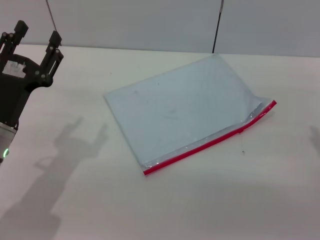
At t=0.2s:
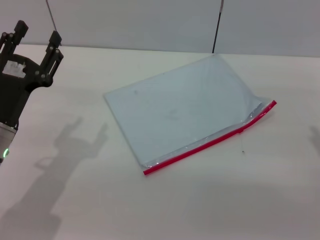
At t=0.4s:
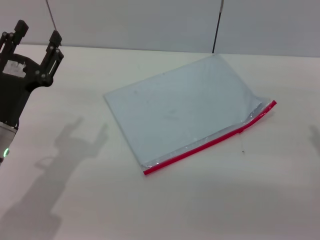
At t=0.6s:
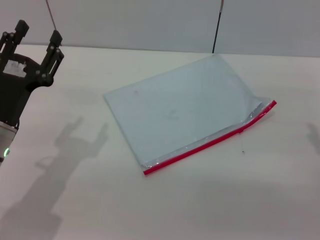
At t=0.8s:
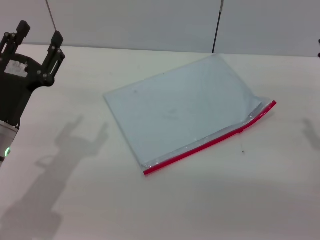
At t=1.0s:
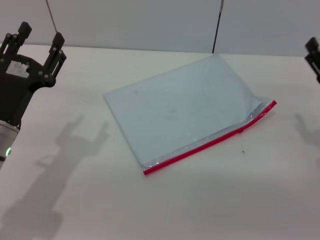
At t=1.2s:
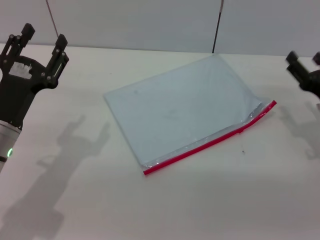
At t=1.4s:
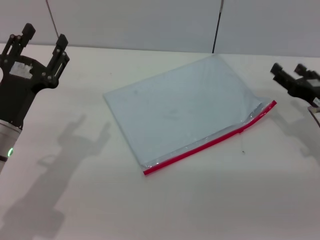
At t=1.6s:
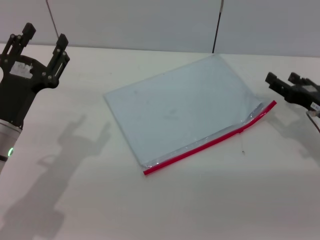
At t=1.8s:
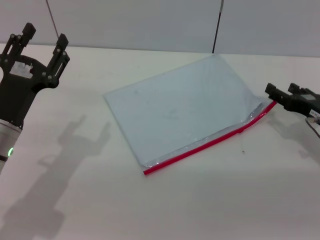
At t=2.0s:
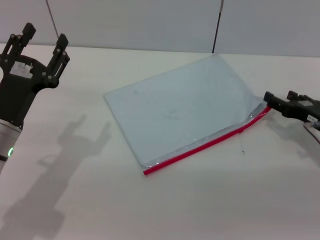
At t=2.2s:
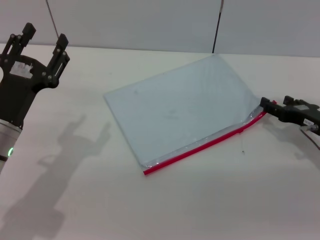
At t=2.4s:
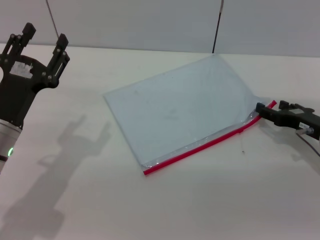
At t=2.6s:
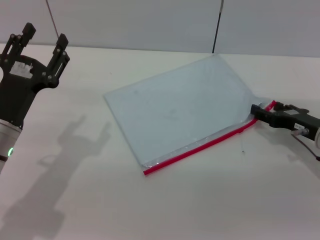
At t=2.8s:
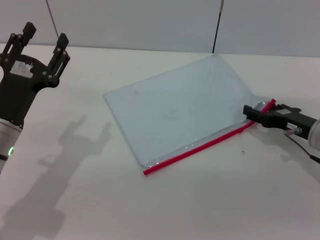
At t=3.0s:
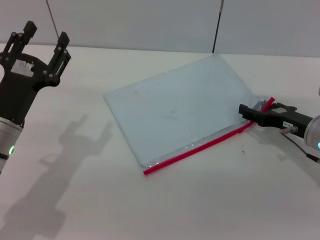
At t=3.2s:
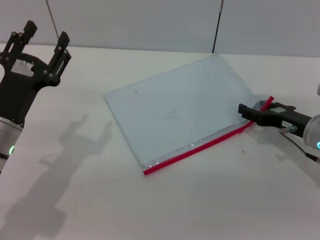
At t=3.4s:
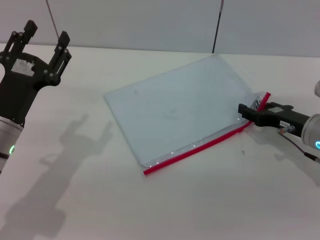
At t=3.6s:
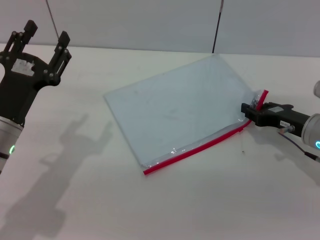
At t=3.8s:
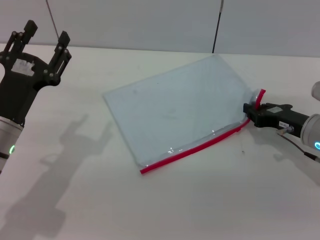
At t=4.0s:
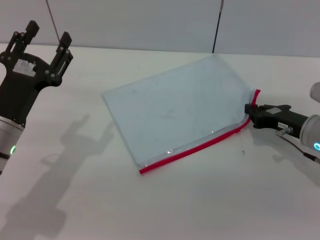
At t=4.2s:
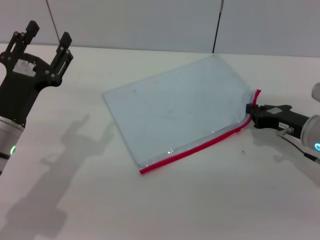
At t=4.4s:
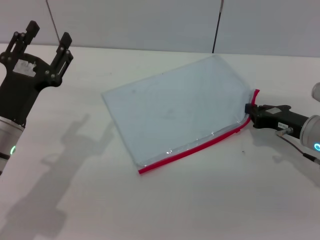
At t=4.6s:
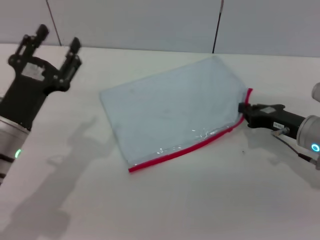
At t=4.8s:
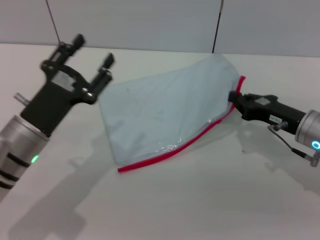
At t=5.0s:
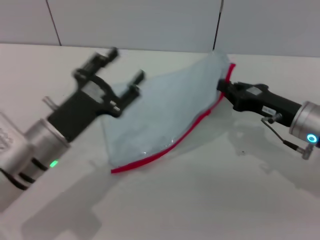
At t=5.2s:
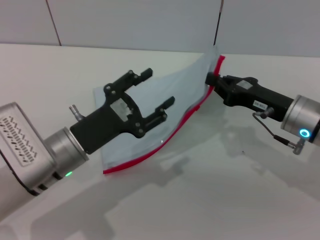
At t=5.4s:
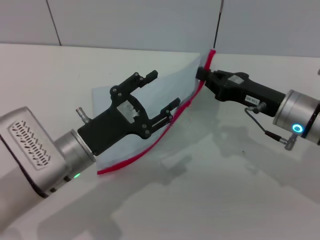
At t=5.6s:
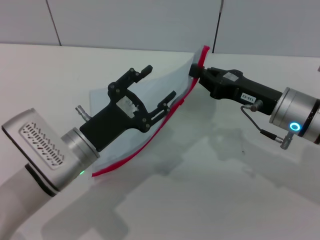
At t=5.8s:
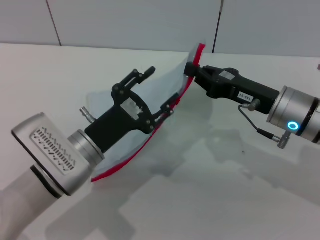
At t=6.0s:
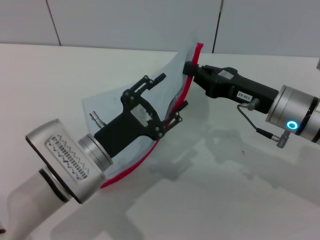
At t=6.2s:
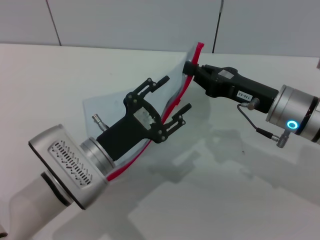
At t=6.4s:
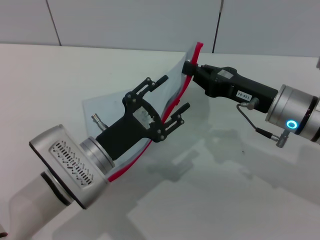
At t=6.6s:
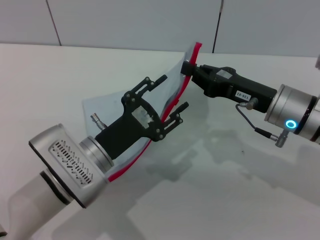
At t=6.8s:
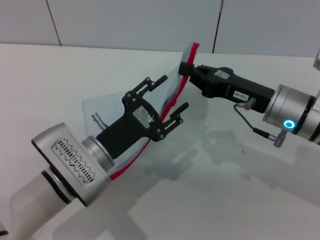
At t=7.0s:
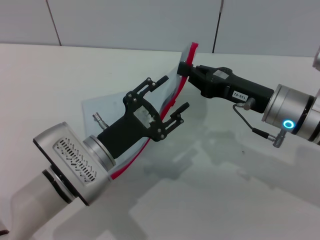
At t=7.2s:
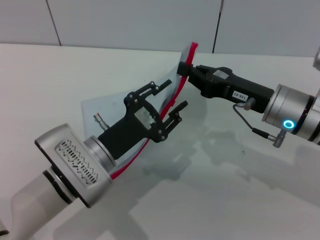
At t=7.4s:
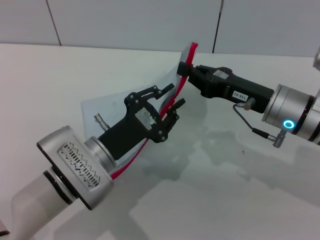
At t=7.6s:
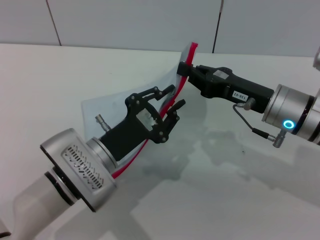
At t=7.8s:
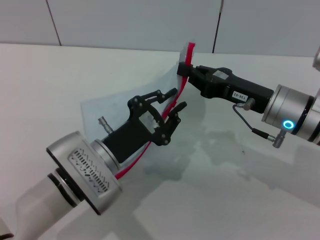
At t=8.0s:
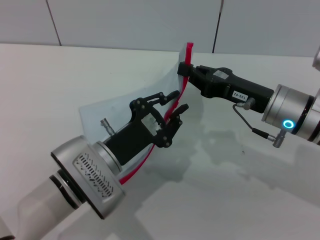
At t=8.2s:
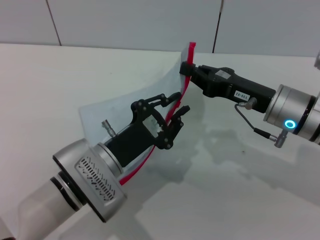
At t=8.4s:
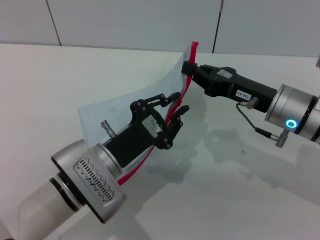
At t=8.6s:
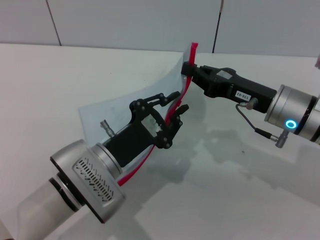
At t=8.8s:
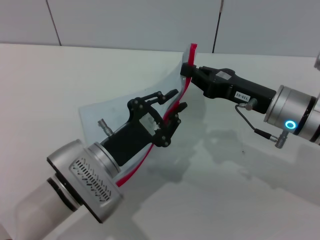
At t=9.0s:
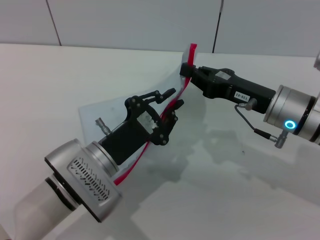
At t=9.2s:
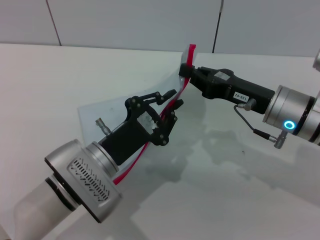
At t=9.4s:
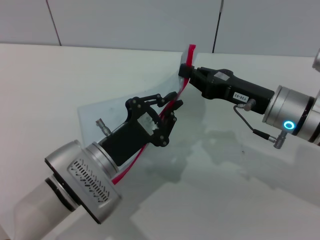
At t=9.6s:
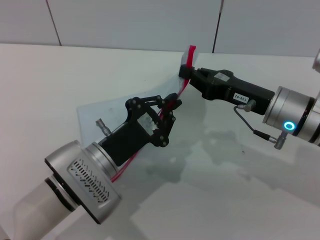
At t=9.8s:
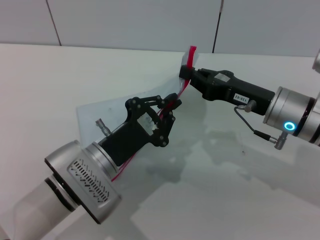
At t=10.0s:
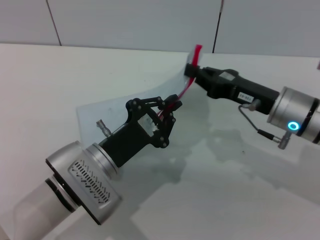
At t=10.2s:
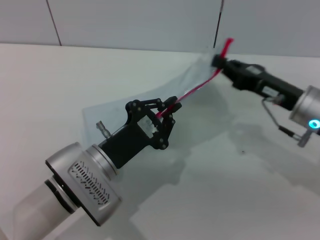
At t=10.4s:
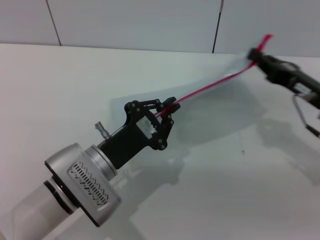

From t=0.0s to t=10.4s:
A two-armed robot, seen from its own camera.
Step, from t=0.0s to t=5.0s: Pick up the transparent plastic bag with the right gripper.
From t=0.0s to t=1.4s: The right gripper is displaced forward by some 5 cm.
From t=3.0s to t=4.4s: The right gripper closes up.
From t=4.4s to t=6.0s: The right gripper goes about 10 cm to the left and upward. The left gripper moves to the right, about 10 cm.
From t=6.0s to t=7.4s: Neither gripper changes place.
From t=7.4s to t=9.0s: The left gripper closes.
From t=9.0s to t=10.4s: The right gripper heads to the right, covering approximately 10 cm.

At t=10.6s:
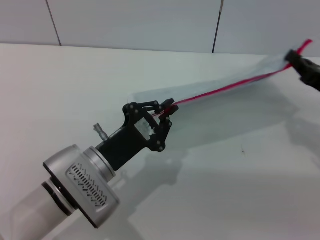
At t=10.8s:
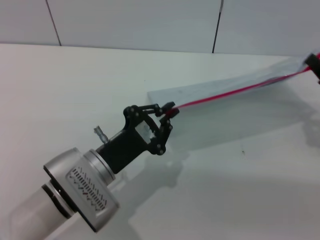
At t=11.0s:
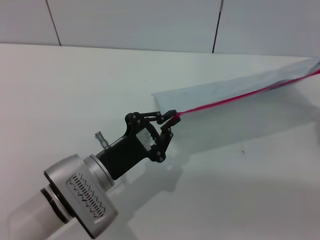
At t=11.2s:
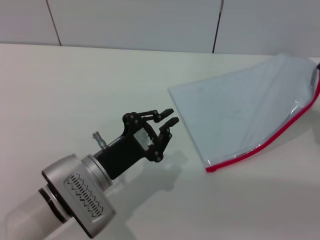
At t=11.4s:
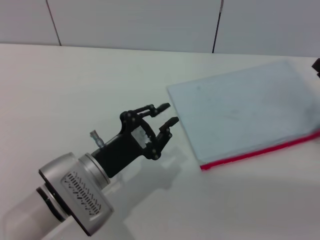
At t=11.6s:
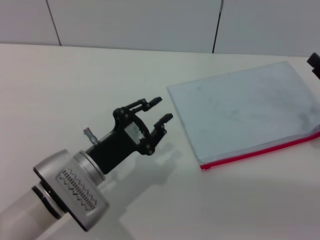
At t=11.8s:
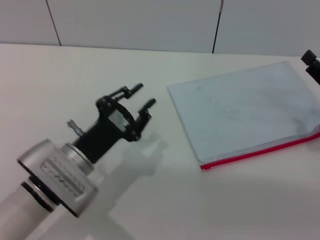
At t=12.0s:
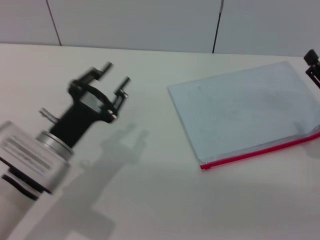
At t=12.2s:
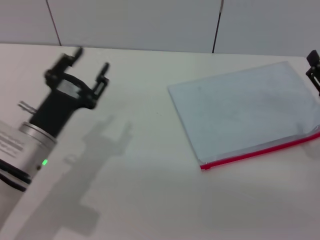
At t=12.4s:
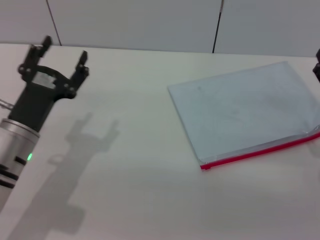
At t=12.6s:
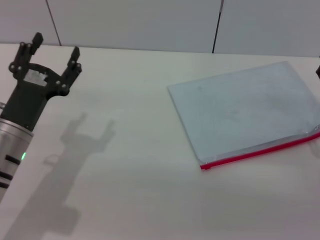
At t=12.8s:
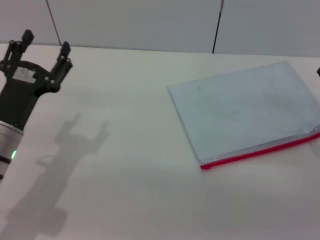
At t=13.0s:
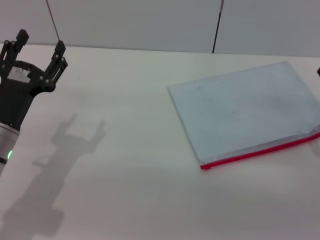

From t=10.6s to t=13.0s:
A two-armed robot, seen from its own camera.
Step, from t=11.6s to t=12.2s: Place the transparent plastic bag.
From t=10.6s to t=11.8s: The right gripper opens up, while the left gripper opens up.
From t=11.8s to t=13.0s: The right gripper ends up some 5 cm from where it was, and opens. The left gripper moves to the left, roughly 10 cm, and opens.

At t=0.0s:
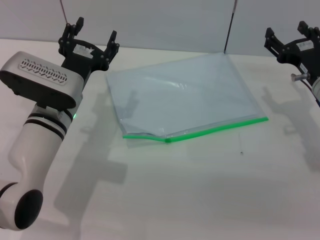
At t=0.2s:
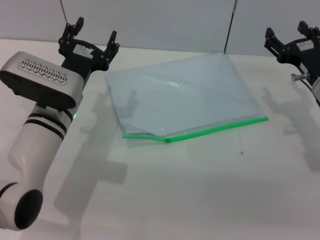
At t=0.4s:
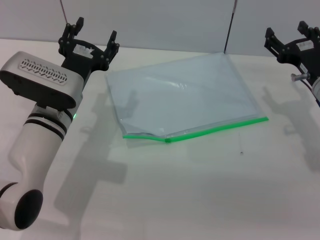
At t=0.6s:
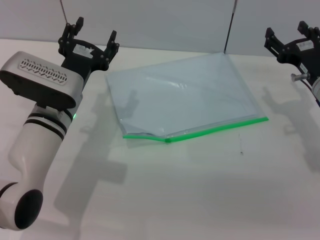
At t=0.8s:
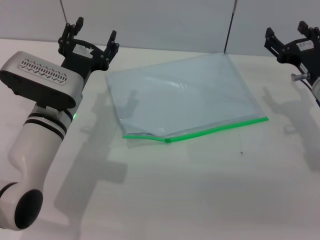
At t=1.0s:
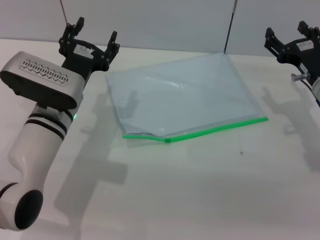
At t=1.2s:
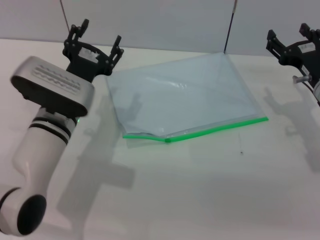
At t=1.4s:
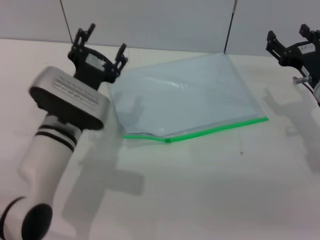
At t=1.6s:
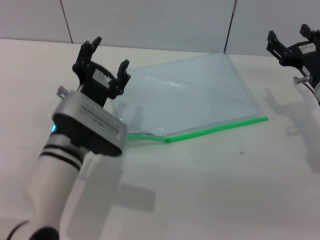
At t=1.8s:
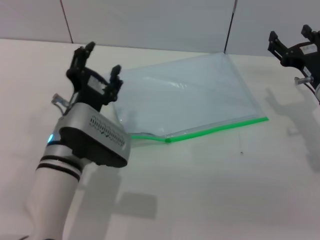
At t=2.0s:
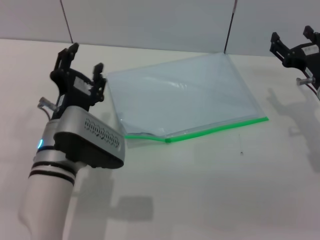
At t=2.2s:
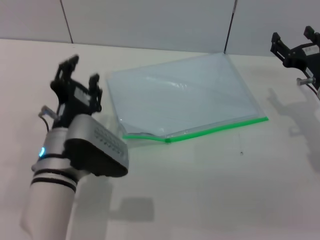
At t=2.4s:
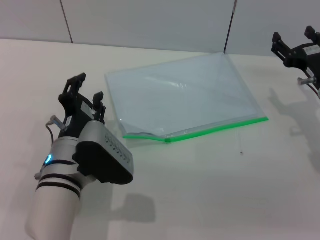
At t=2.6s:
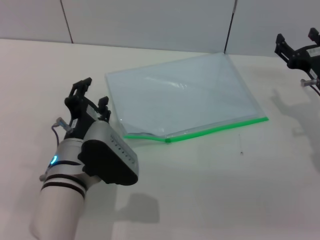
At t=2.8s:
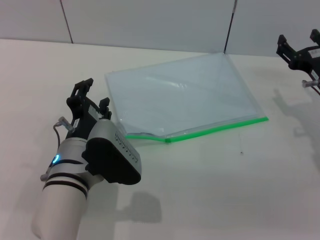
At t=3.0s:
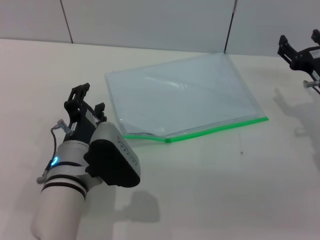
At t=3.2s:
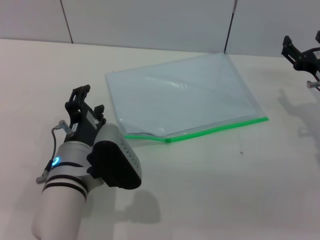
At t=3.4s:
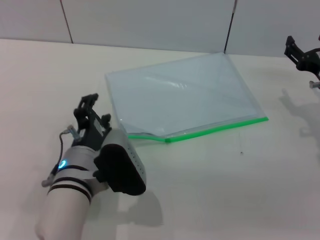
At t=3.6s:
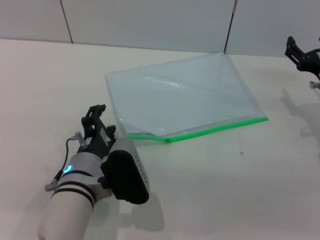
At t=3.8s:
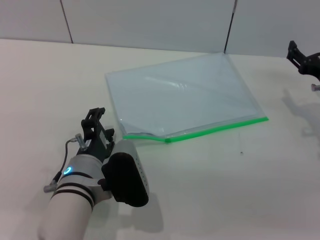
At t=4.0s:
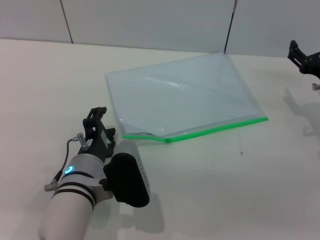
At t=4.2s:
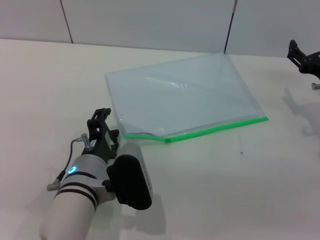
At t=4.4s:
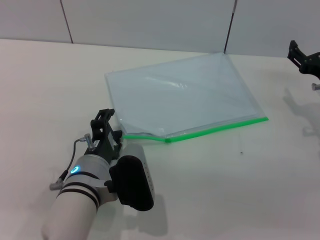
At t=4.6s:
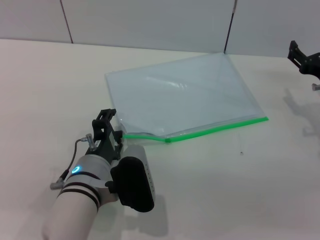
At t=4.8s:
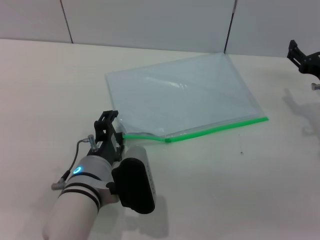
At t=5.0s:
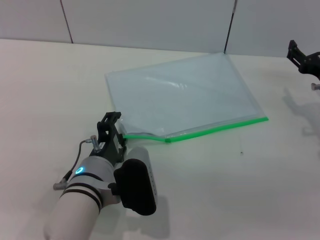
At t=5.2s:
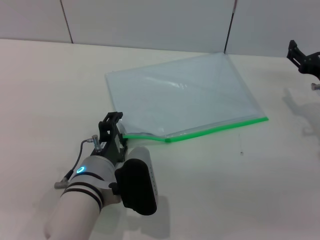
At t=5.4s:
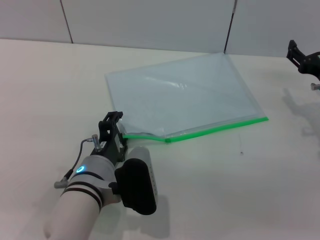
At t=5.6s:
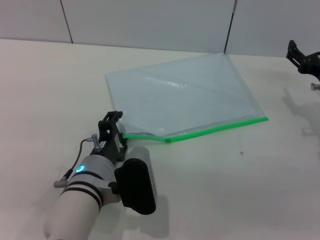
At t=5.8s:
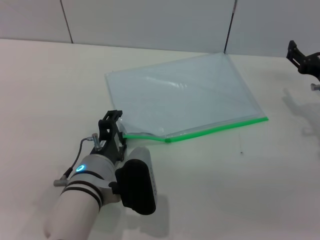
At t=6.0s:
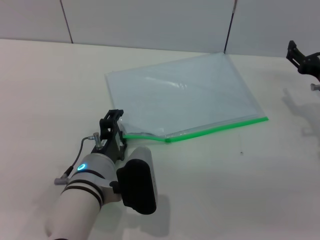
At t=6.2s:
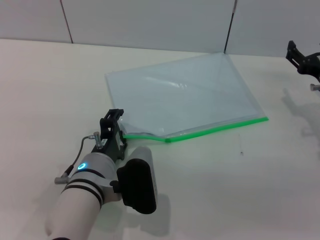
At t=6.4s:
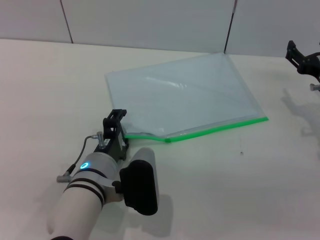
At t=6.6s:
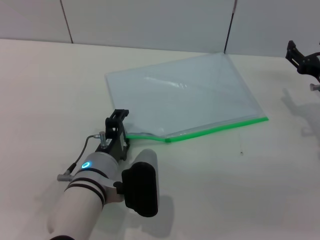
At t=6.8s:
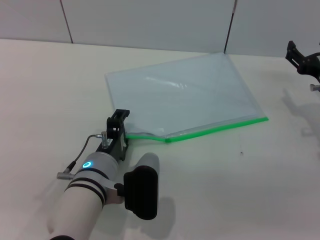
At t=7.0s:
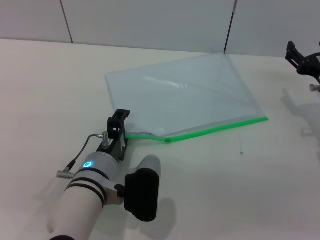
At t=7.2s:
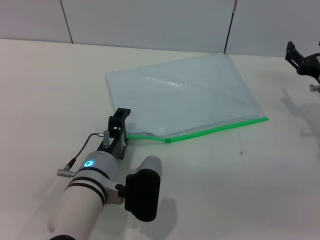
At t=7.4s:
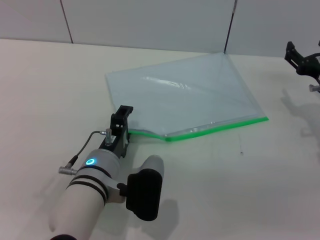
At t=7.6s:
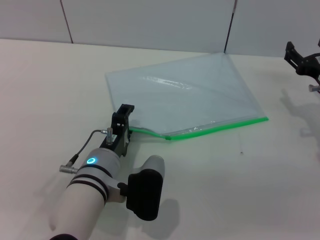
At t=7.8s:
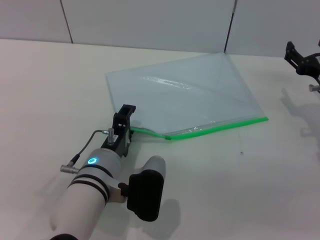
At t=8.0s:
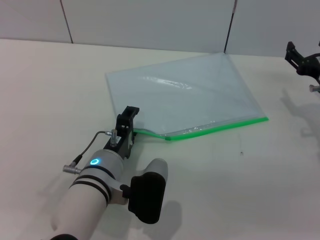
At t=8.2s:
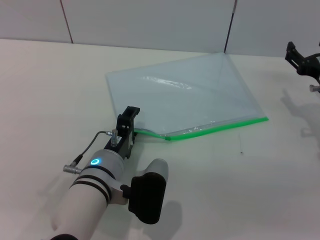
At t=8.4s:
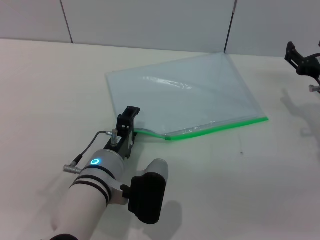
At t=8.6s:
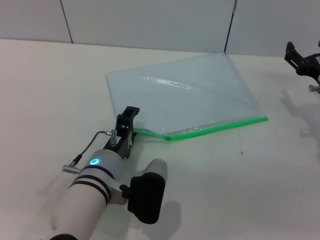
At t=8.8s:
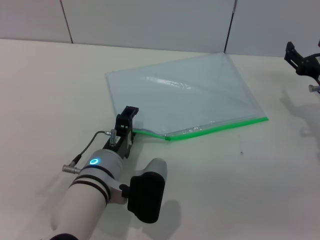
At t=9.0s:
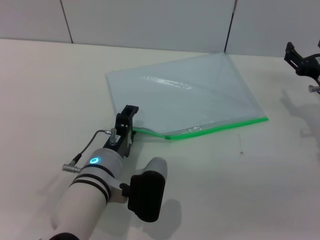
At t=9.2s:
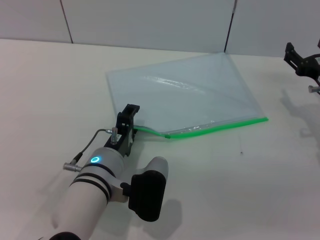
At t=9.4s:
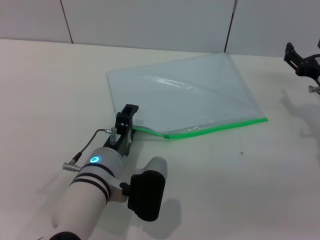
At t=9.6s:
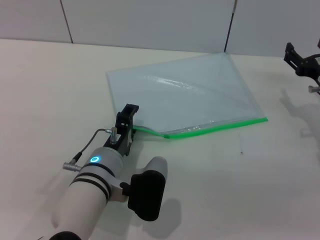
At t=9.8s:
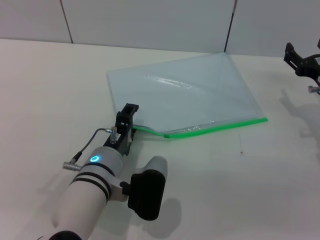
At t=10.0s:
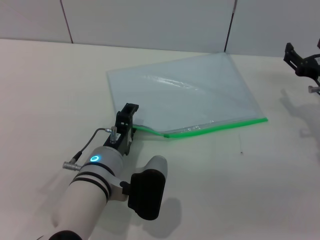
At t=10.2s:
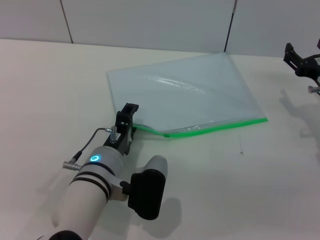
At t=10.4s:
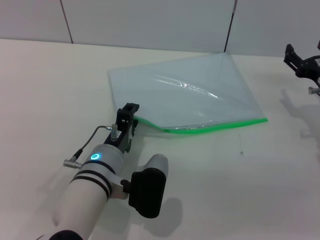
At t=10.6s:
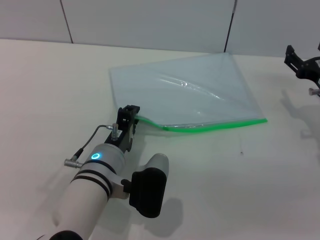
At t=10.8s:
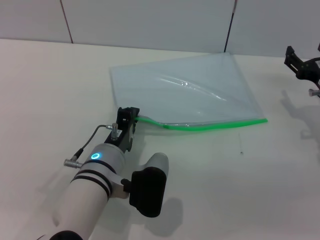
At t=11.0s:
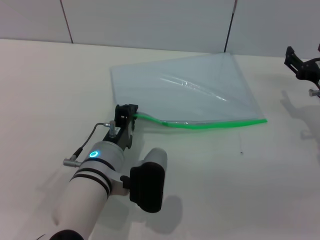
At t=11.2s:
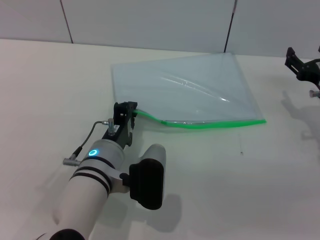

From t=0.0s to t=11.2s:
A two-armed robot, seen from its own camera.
From t=0.0s to t=1.6s: The left gripper ends up some 5 cm from where it was.
From t=3.2s to t=4.8s: The grippers move only a little.
From t=4.8s to t=8.0s: The grippers move only a little.
From t=8.0s to t=9.6s: Neither gripper changes place.
From t=9.6s to t=11.2s: The left gripper closes.
